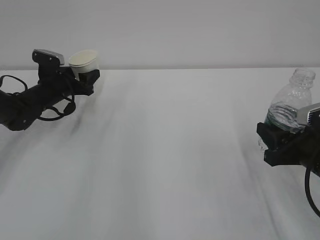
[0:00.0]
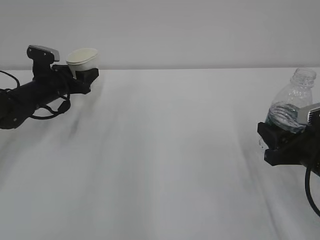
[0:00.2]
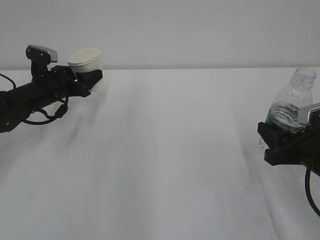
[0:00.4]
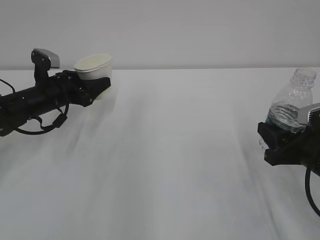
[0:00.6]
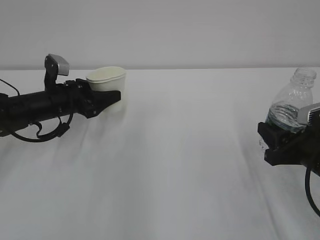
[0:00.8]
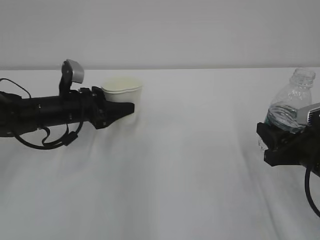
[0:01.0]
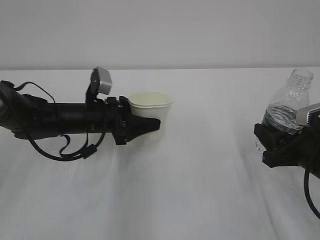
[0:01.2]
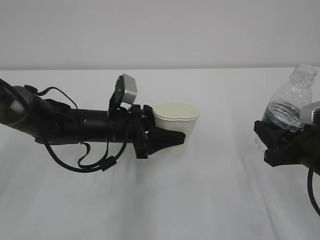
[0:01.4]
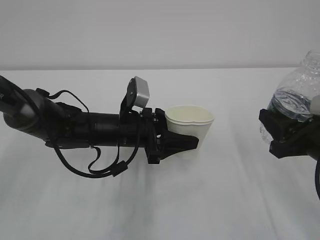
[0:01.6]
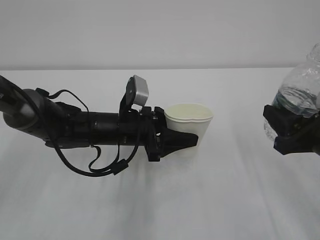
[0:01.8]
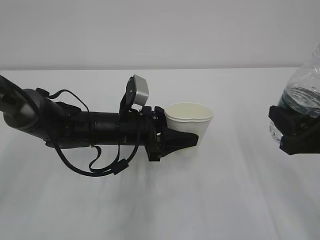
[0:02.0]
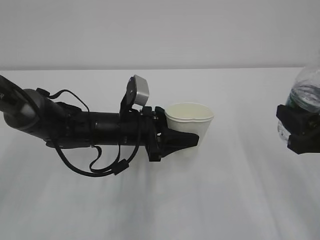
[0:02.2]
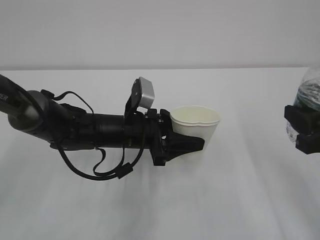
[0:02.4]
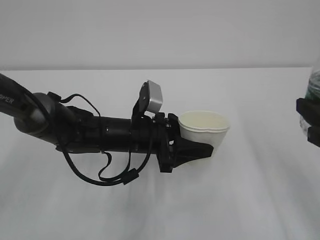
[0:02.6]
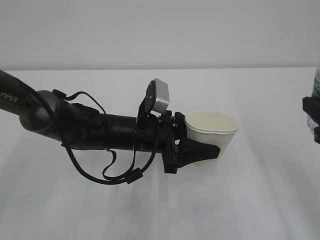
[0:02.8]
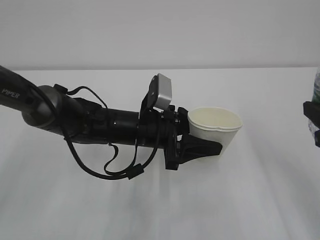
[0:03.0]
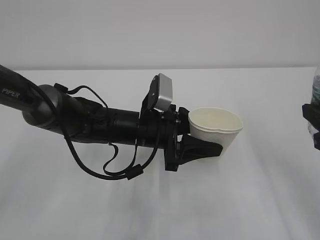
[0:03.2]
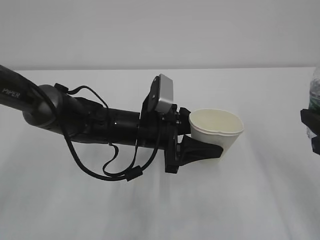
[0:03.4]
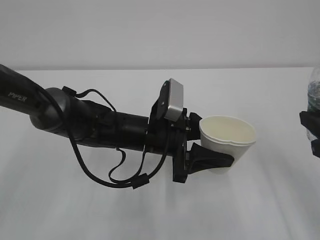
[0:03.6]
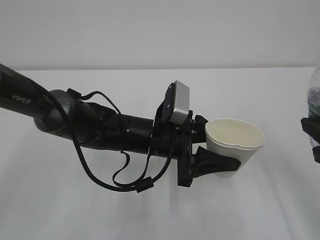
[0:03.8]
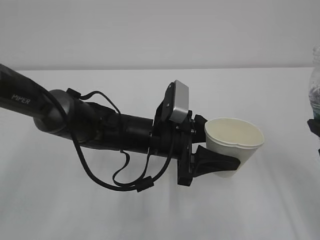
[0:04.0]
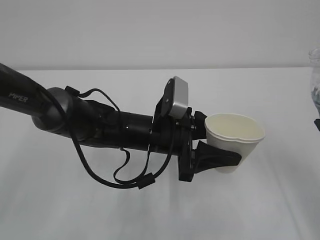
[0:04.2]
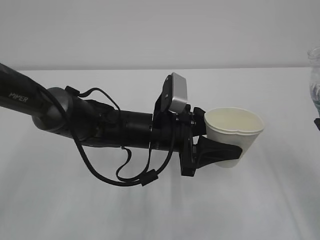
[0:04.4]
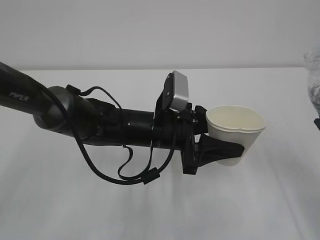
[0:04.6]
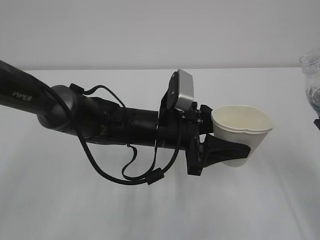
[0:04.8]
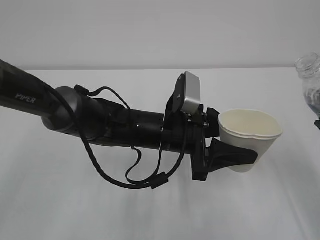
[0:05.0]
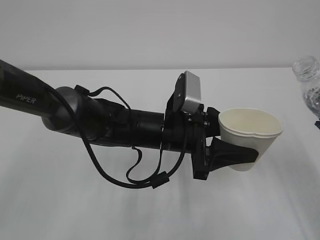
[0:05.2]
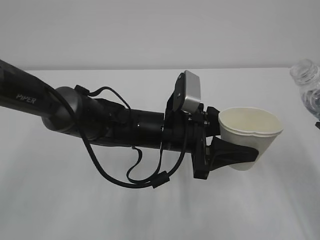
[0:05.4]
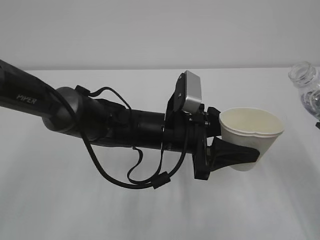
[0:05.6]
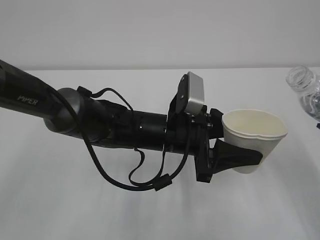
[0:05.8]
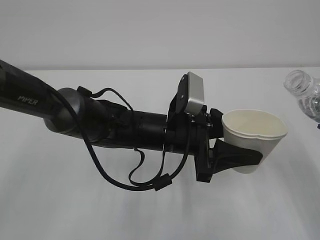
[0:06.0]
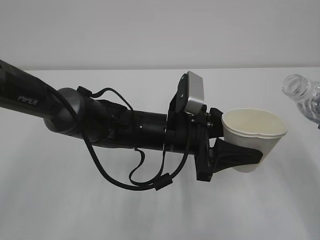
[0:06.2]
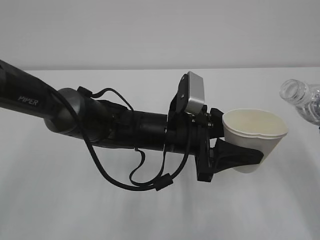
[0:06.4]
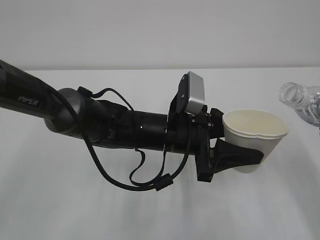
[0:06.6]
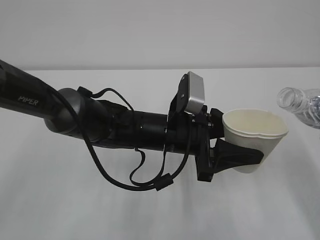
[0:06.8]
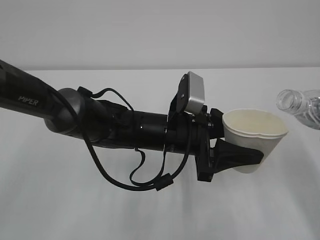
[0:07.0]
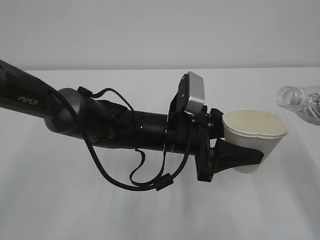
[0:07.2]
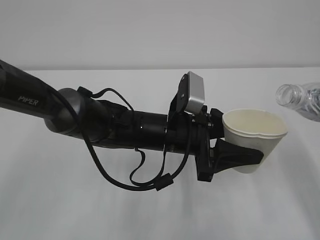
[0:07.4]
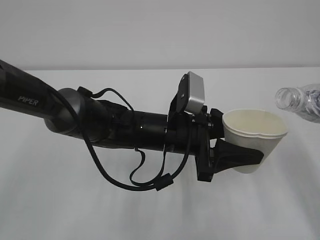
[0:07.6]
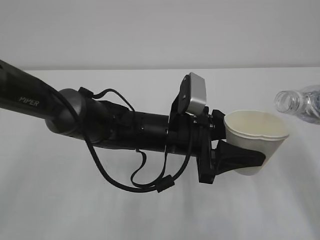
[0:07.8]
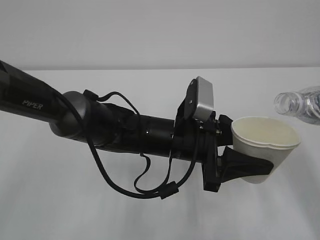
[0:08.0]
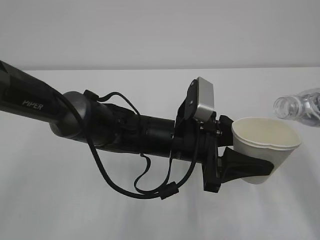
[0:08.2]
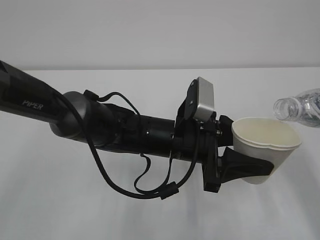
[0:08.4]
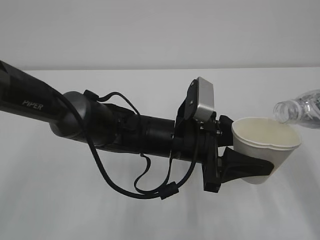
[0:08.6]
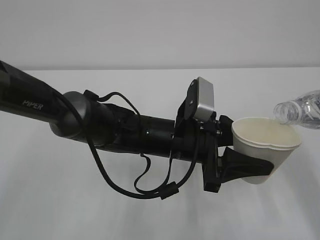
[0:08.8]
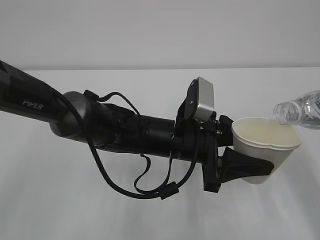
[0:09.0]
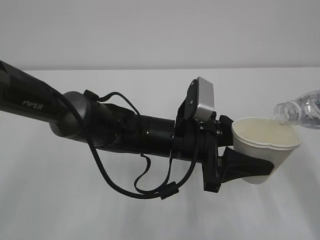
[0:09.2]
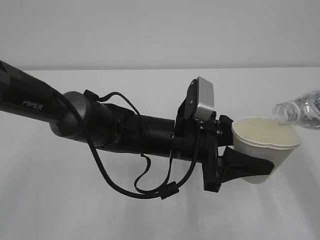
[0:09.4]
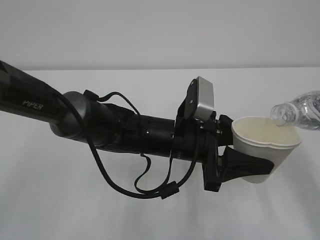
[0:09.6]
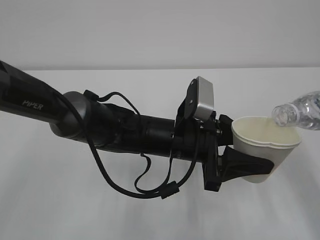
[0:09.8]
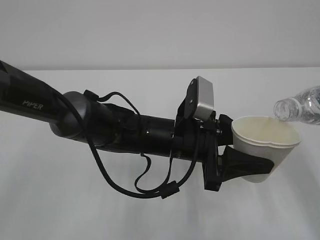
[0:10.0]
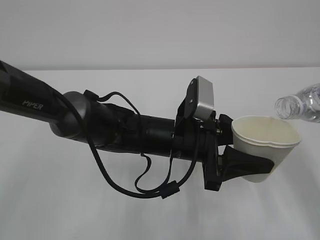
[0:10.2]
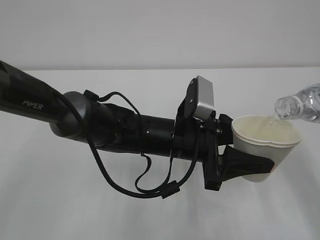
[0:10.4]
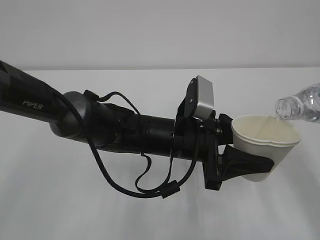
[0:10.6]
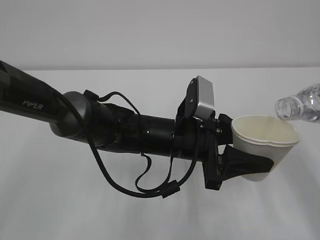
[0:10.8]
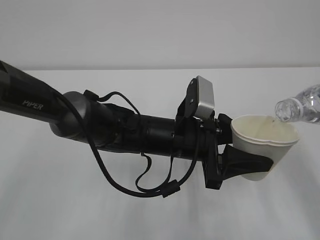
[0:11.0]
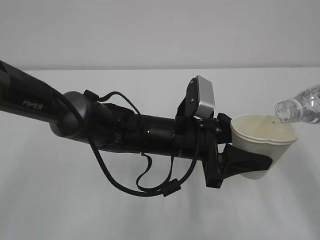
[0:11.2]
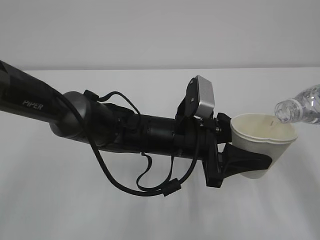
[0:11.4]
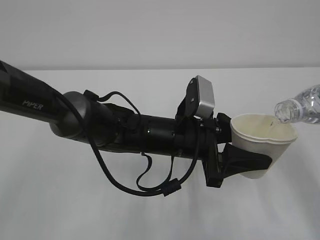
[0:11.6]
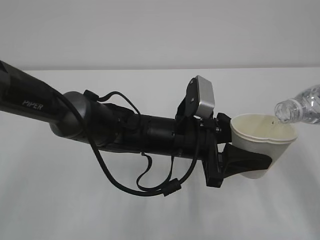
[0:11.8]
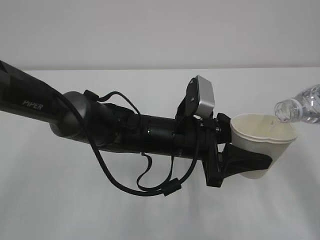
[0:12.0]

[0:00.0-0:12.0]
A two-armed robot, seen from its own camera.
0:00.0 to 0:01.6: The left gripper moves to the right and backward, approximately 25 cm.
0:01.6 to 0:03.0: The right gripper travels upward by about 10 cm.
0:06.0 to 0:07.6: The grippers stay close to where they were, moving slightly.
0:07.6 to 0:09.0: The grippers make only small movements.
0:09.0 to 0:10.4: Both grippers stay about where they are.
0:10.4 to 0:12.0: The two grippers keep their place.

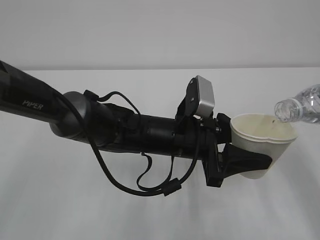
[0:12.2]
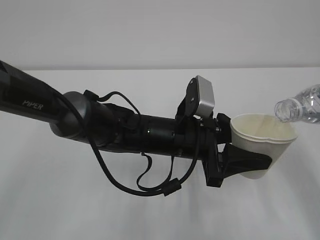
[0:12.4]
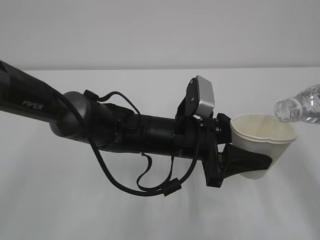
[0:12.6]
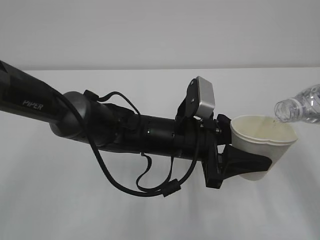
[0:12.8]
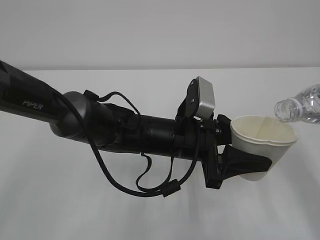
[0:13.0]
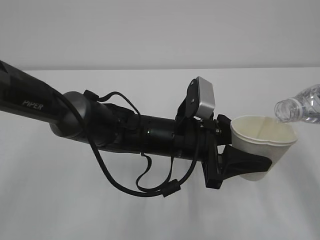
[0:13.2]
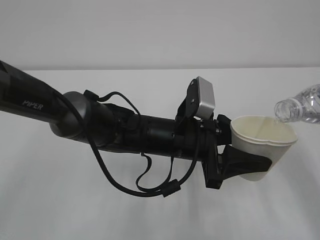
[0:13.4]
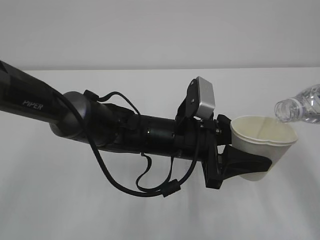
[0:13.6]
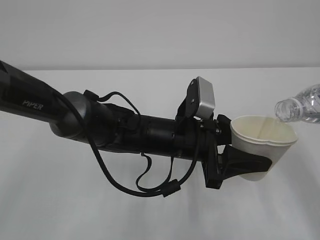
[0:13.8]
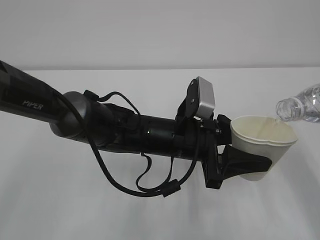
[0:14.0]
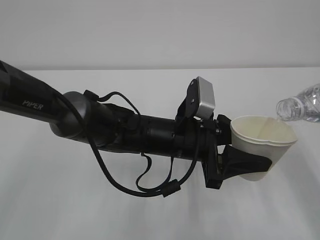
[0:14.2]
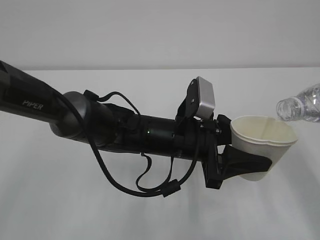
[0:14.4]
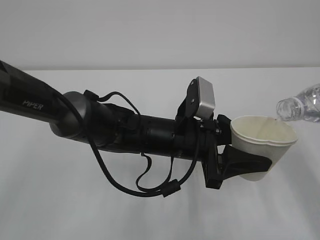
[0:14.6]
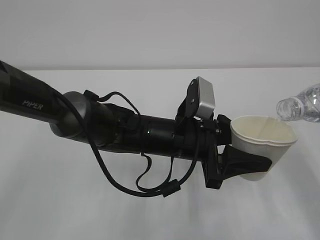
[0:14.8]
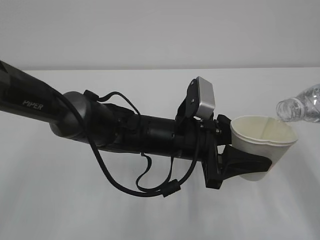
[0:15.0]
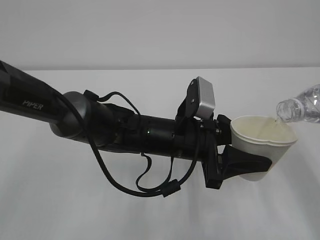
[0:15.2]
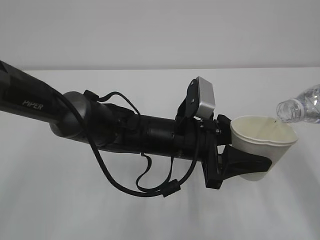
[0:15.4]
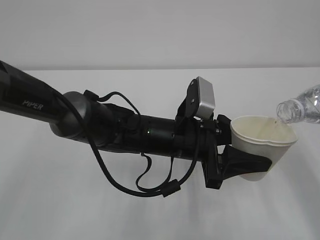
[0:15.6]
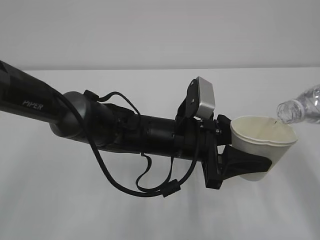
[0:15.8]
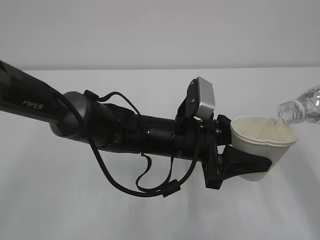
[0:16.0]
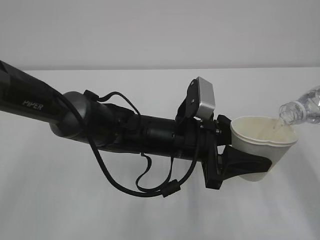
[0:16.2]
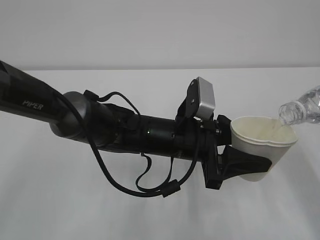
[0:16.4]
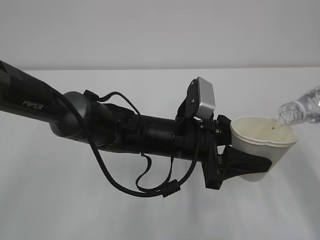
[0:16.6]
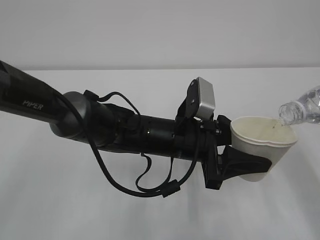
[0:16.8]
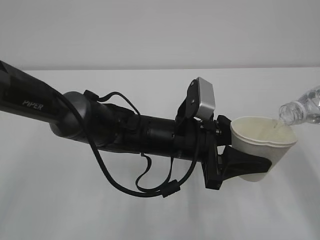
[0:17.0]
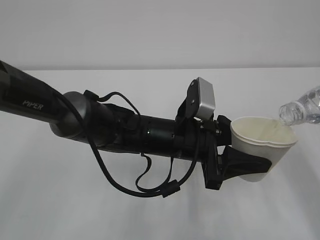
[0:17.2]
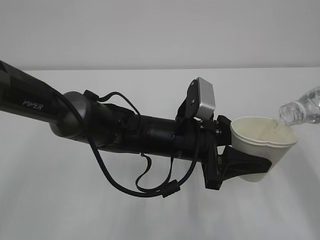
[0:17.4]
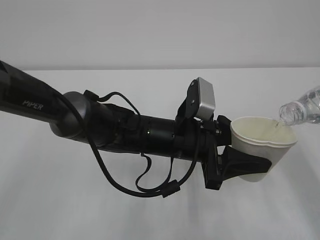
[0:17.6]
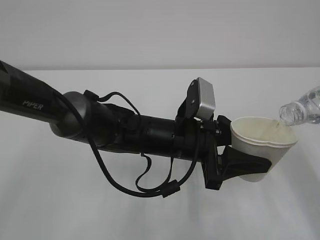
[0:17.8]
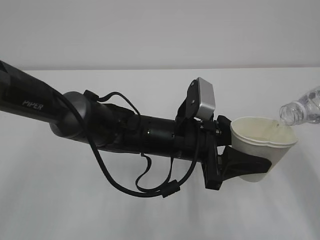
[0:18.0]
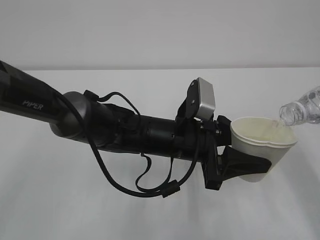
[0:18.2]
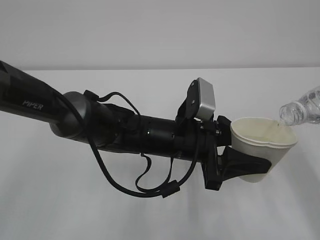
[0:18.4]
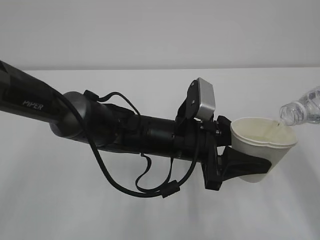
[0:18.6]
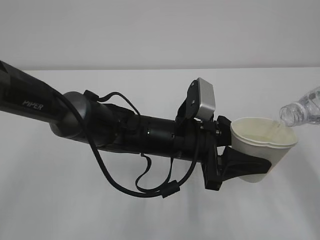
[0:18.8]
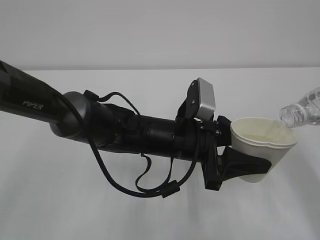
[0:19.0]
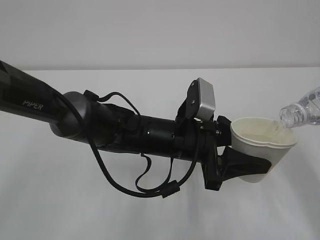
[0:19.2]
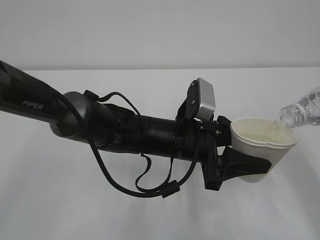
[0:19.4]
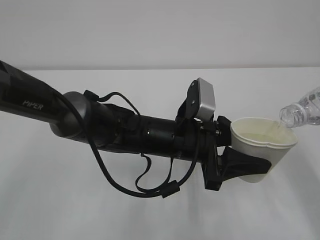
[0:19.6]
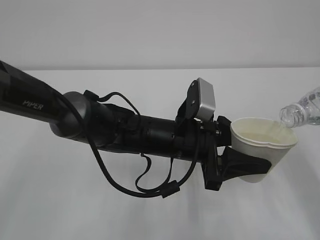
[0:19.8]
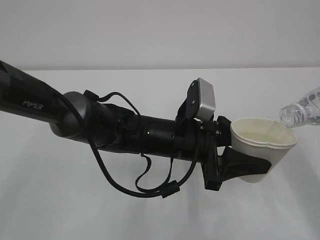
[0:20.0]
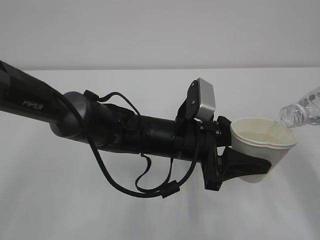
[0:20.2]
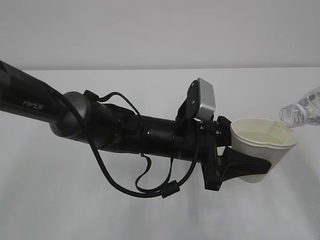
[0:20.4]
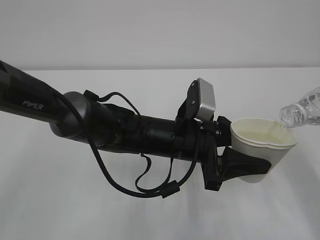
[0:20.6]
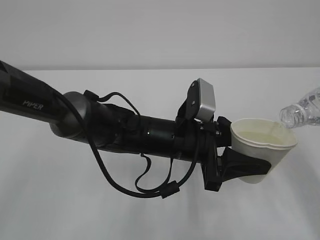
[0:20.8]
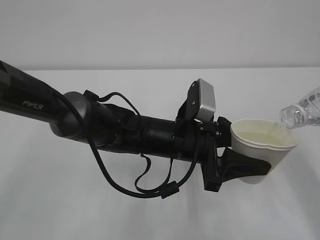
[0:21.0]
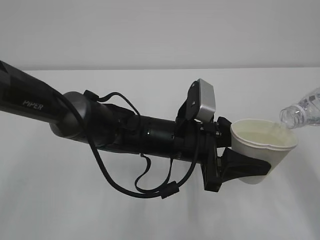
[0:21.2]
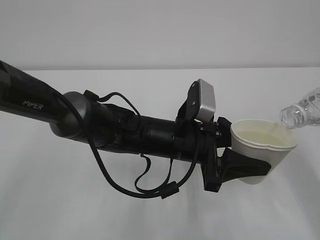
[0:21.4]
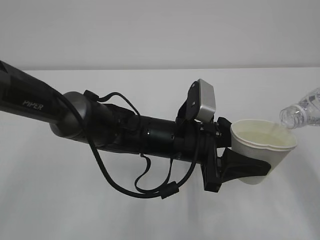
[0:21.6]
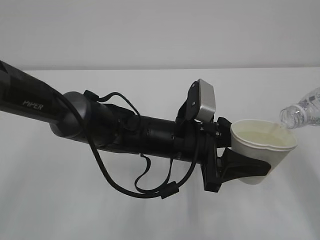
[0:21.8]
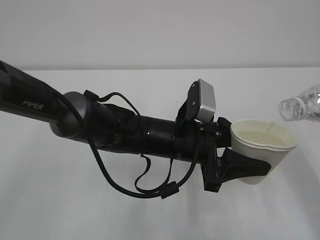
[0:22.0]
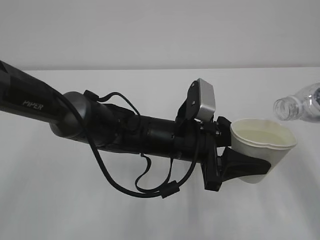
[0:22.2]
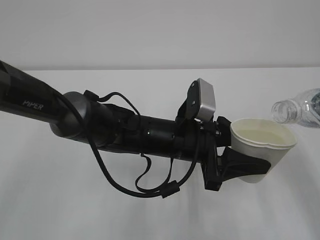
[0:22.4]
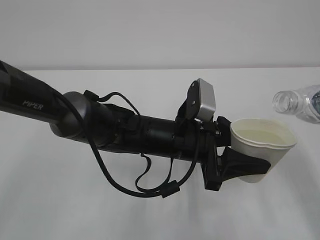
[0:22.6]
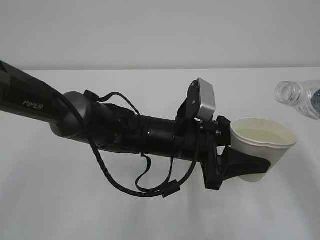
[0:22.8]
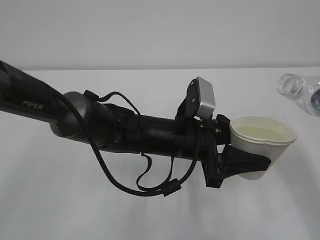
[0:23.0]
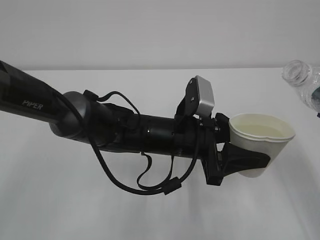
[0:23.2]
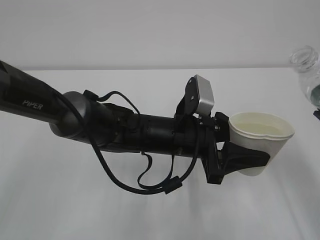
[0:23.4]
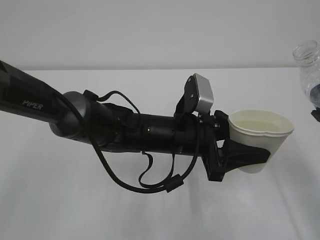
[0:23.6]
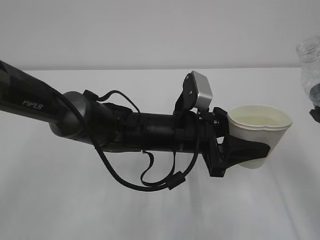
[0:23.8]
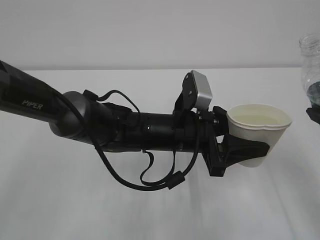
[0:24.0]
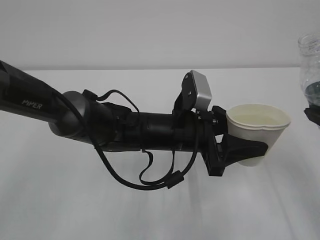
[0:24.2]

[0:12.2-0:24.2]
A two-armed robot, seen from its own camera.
0:12.2 to 0:16.6: The two grippers keep their place.
0:16.6 to 0:21.2: Neither gripper changes place.
